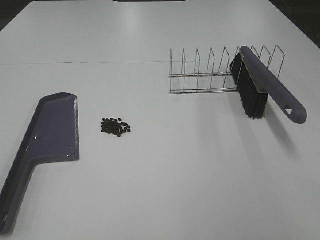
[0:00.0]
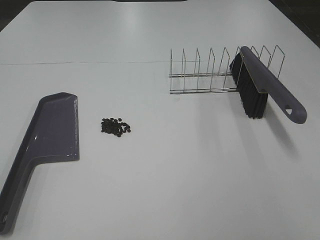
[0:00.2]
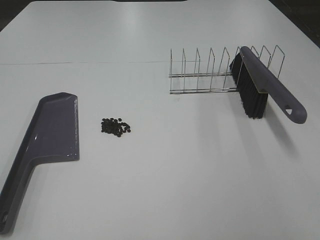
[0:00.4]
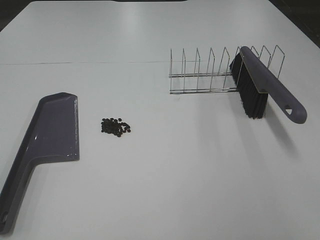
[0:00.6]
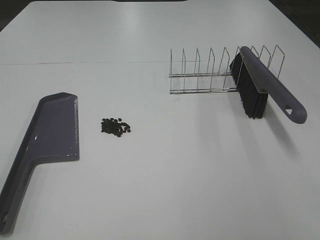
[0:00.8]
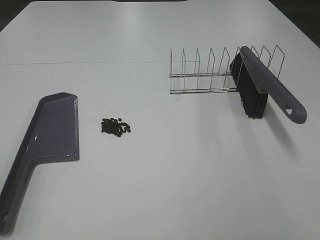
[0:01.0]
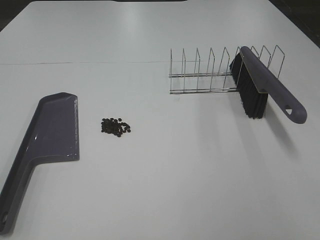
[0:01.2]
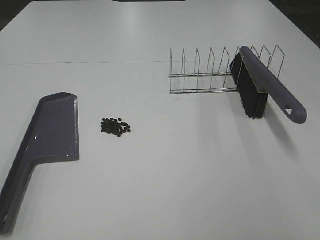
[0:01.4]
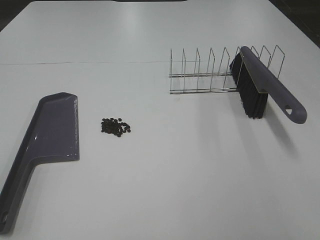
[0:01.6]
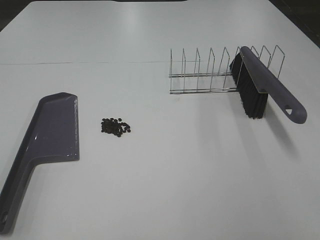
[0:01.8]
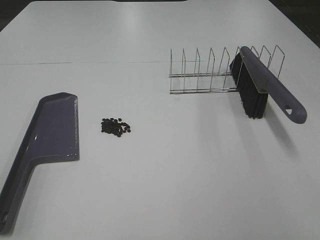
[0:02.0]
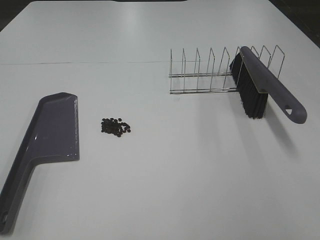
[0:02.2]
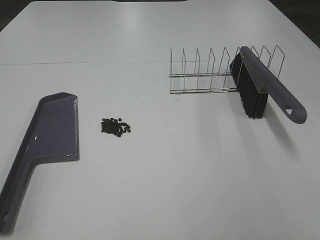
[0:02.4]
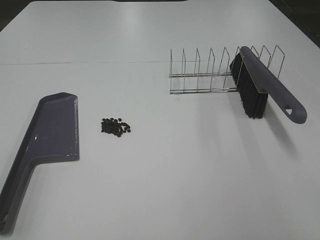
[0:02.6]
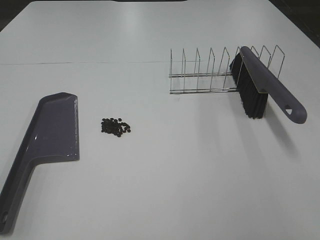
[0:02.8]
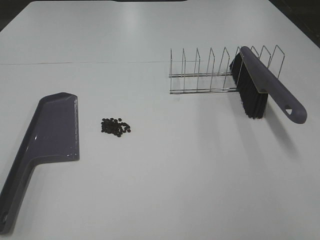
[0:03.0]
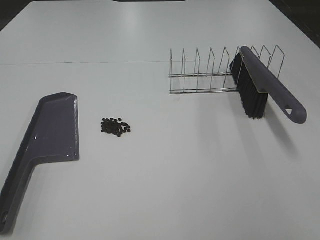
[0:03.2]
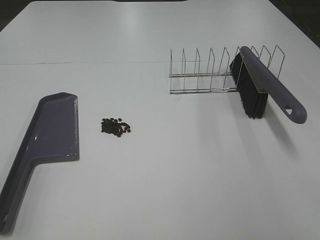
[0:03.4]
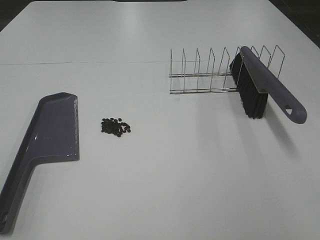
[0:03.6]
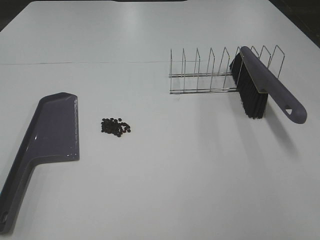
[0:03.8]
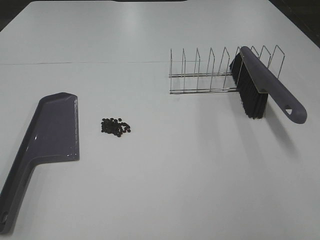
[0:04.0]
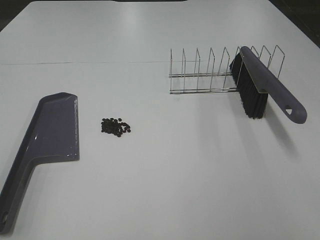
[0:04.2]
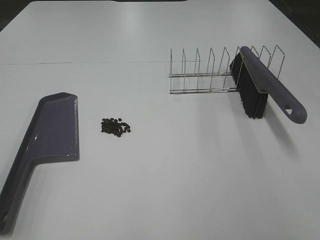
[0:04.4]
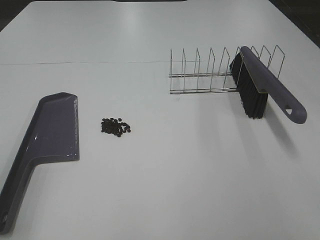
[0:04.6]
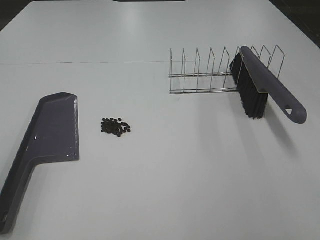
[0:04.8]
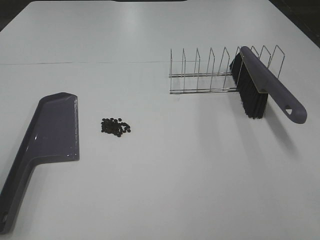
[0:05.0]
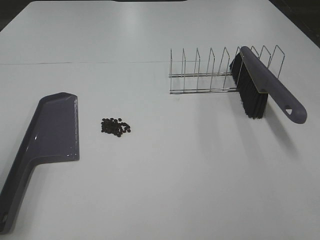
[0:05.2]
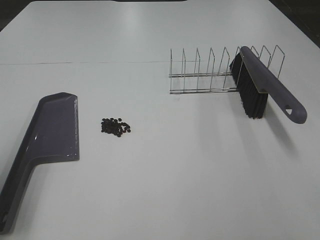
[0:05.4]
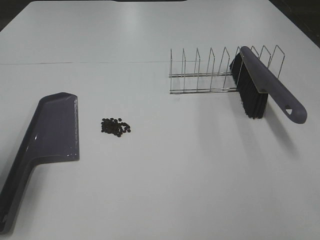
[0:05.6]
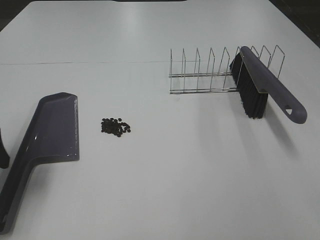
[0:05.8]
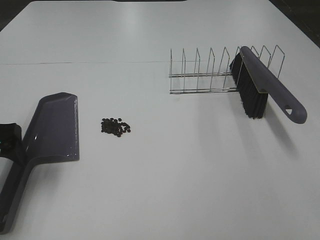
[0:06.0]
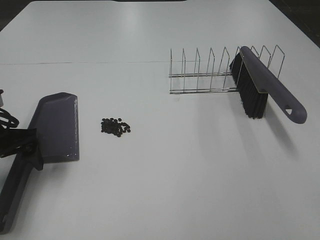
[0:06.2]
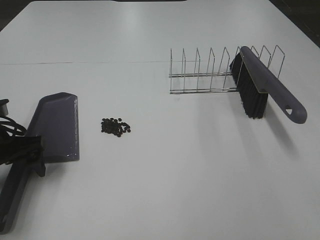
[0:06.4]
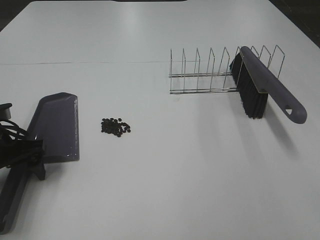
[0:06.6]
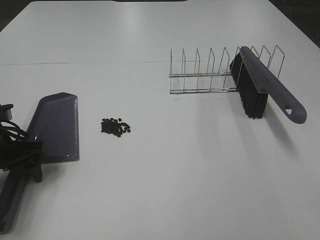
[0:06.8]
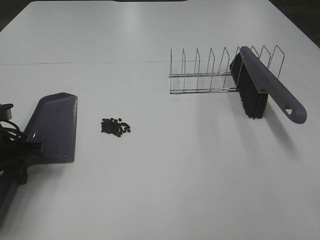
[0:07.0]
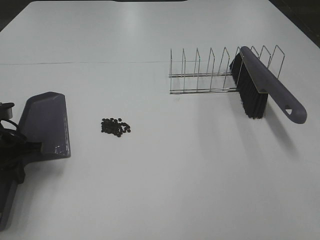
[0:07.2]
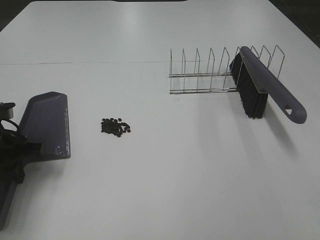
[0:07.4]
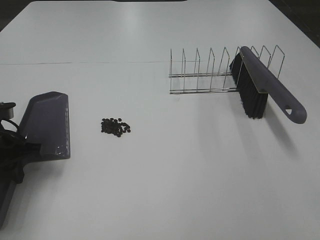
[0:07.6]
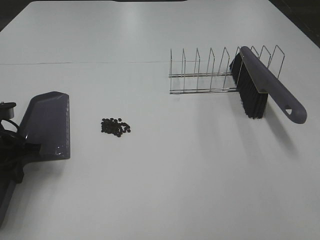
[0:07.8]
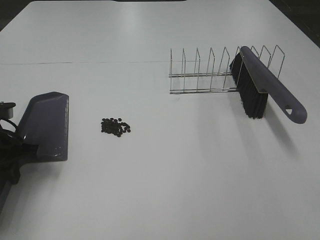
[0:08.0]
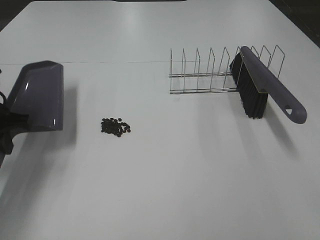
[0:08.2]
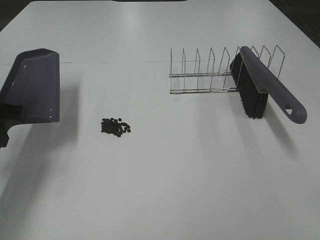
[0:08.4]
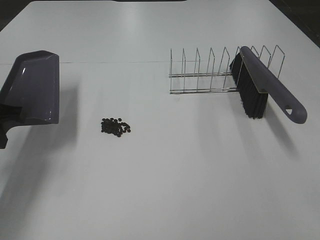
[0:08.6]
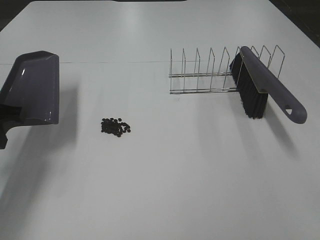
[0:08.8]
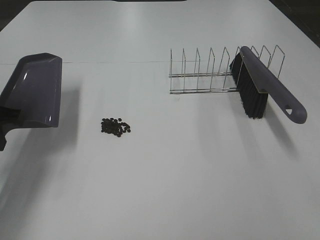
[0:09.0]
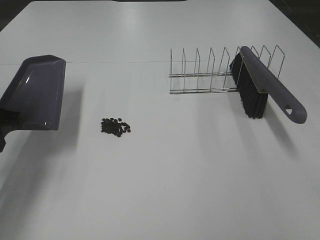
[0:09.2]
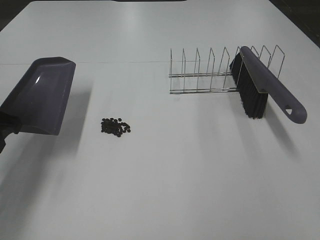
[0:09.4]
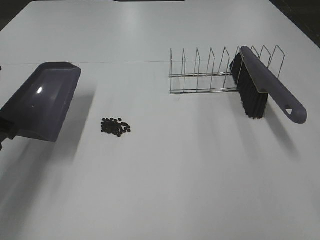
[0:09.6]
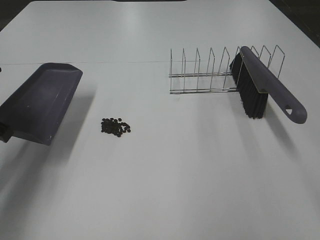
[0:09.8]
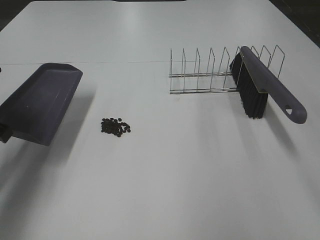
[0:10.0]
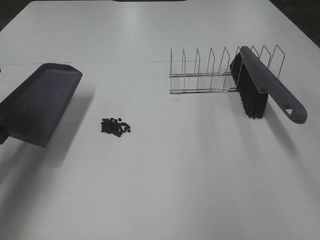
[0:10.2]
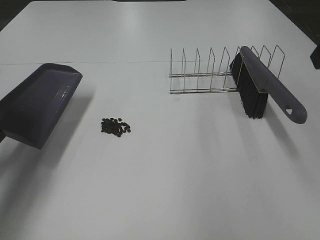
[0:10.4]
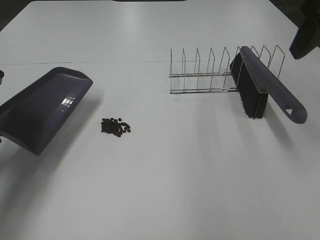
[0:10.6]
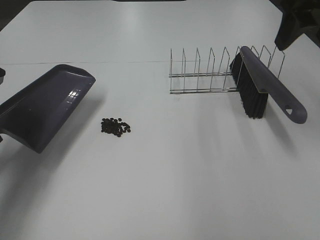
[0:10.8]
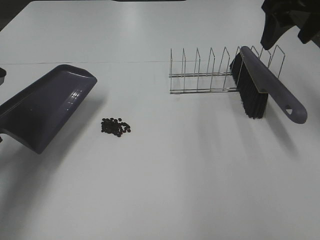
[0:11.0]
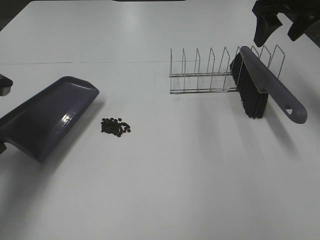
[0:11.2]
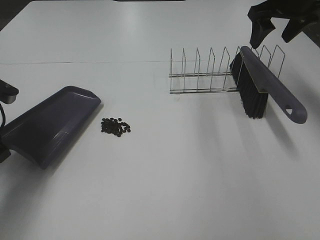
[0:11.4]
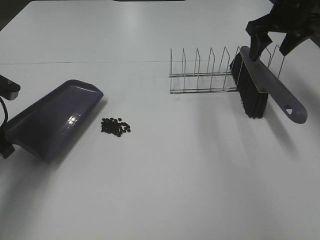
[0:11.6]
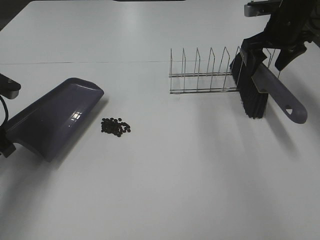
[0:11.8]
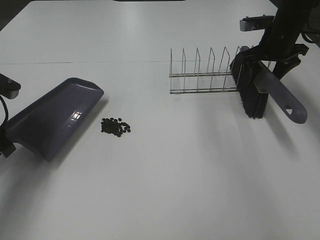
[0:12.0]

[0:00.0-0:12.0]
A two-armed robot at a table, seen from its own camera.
Task of the whole recording: Sweep Coffee Bean.
Step, 0:00.0 to 0:07.4: Left hand: grab the dustpan.
0:01.6 to 0:03.0: Both grippers stay about where they are.
0:04.4 to 0:06.0: The left gripper travels forward and downward by about 25 cm.
0:06.0 to 0:07.6: The left gripper moves downward, approximately 5 cm, and closes its fingers.
0:07.6 to 0:09.0: The left gripper heads upward, covering roughly 10 cm.
0:10.4 to 0:12.0: The right gripper is displaced forward and downward by roughly 30 cm.

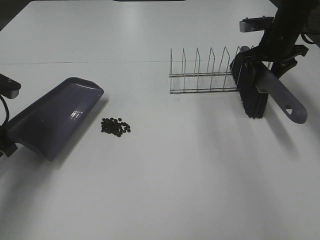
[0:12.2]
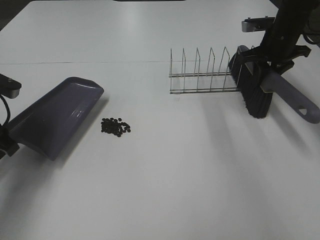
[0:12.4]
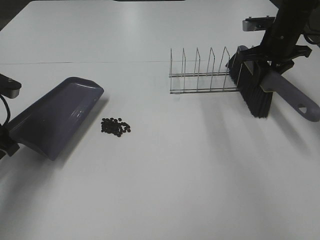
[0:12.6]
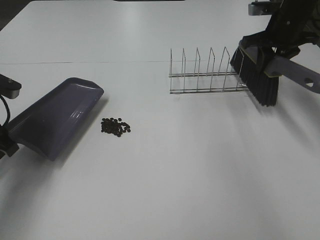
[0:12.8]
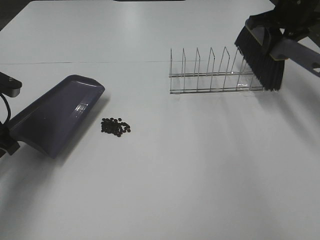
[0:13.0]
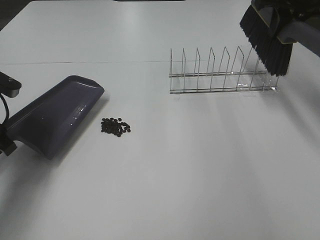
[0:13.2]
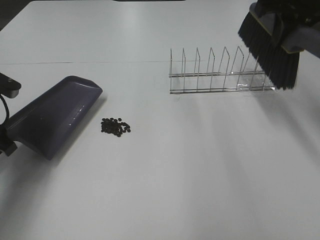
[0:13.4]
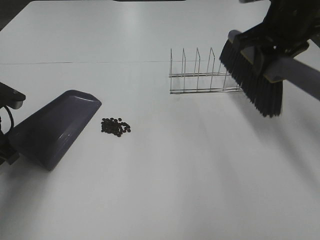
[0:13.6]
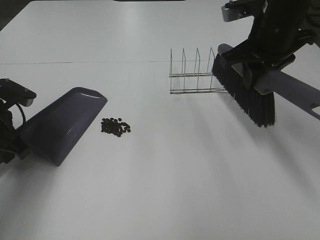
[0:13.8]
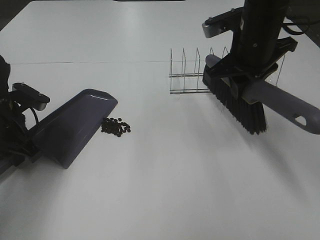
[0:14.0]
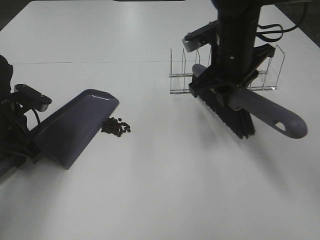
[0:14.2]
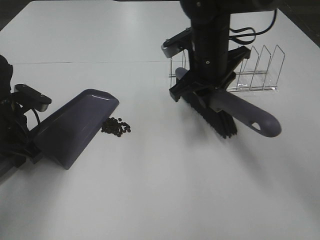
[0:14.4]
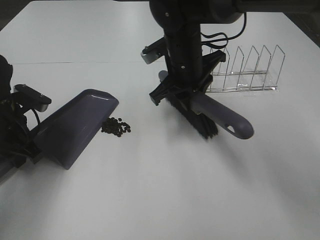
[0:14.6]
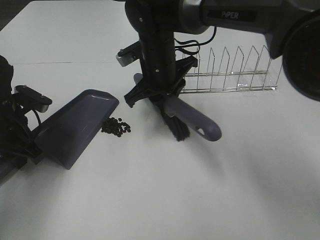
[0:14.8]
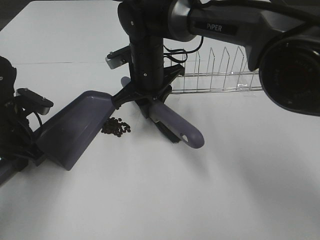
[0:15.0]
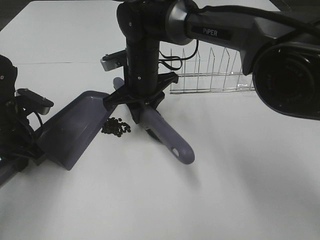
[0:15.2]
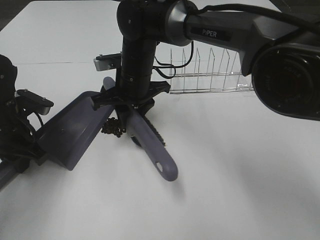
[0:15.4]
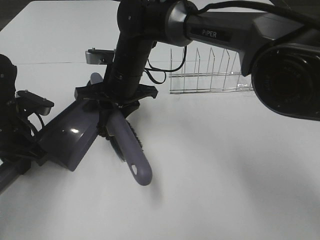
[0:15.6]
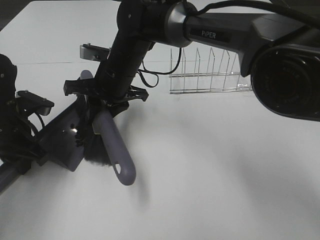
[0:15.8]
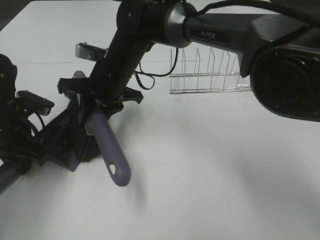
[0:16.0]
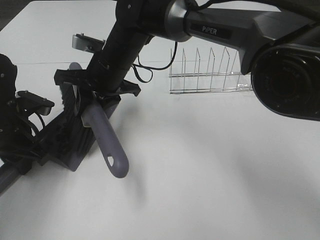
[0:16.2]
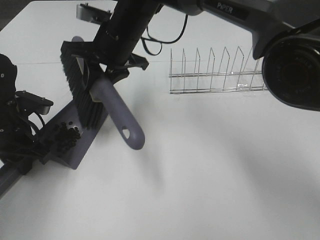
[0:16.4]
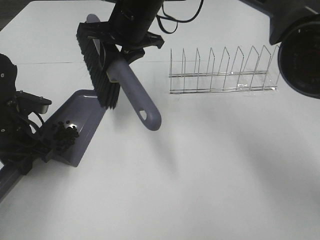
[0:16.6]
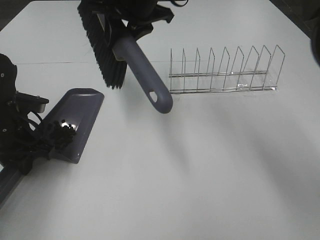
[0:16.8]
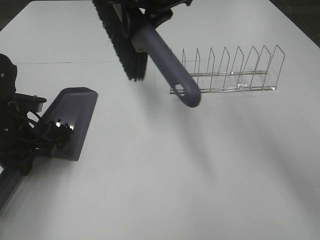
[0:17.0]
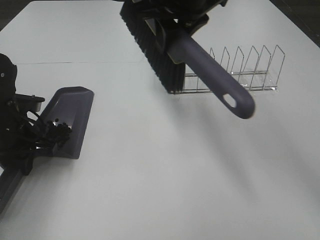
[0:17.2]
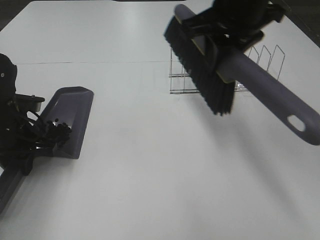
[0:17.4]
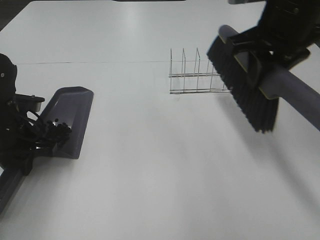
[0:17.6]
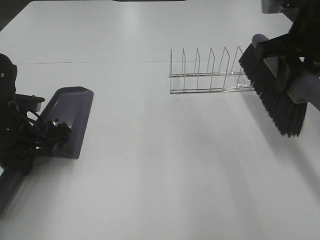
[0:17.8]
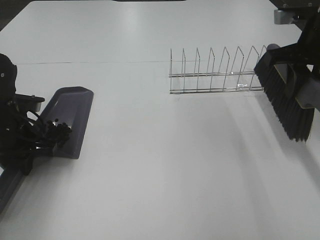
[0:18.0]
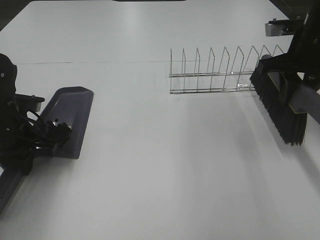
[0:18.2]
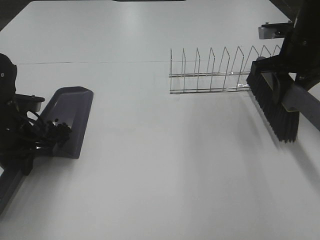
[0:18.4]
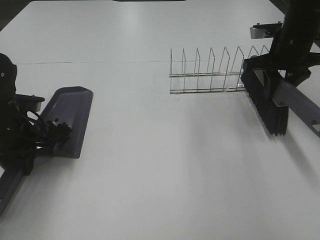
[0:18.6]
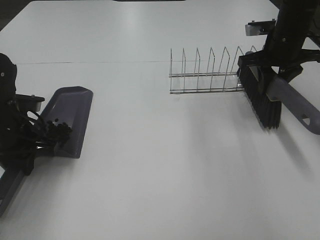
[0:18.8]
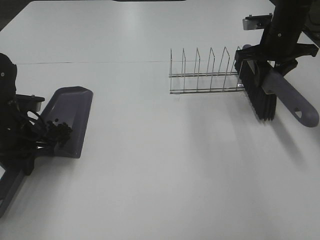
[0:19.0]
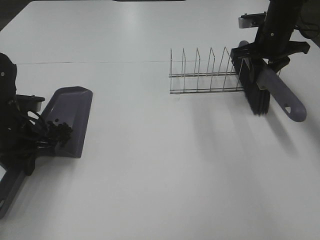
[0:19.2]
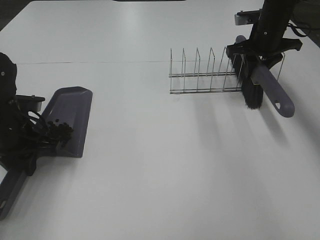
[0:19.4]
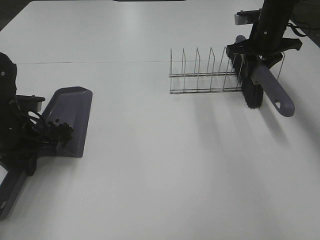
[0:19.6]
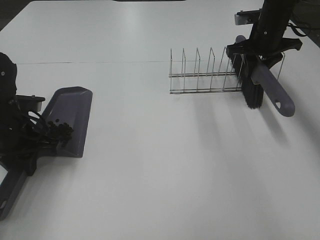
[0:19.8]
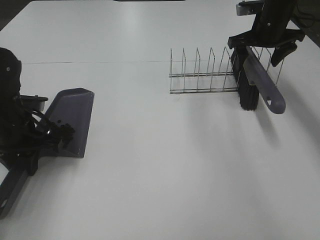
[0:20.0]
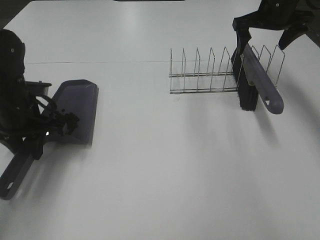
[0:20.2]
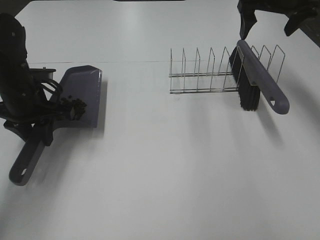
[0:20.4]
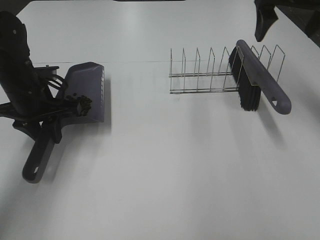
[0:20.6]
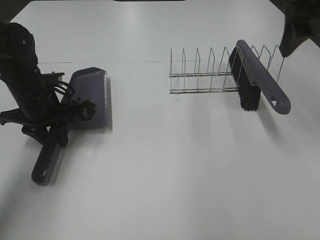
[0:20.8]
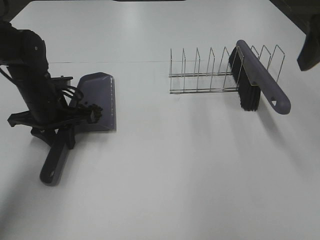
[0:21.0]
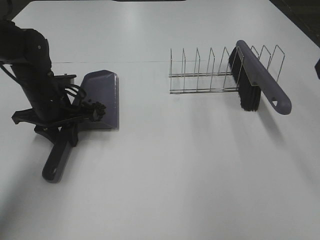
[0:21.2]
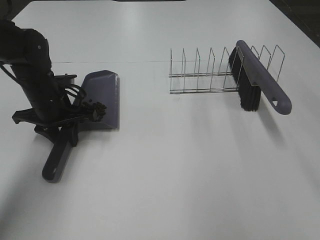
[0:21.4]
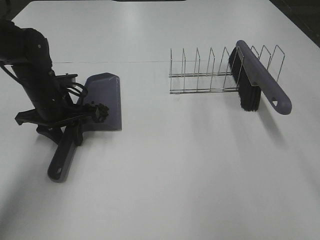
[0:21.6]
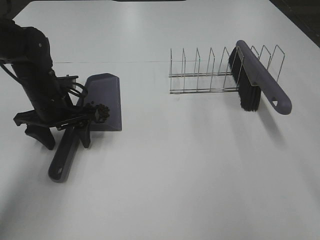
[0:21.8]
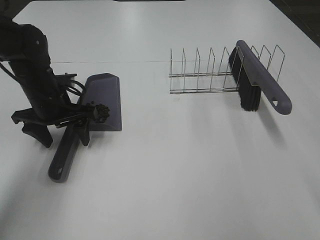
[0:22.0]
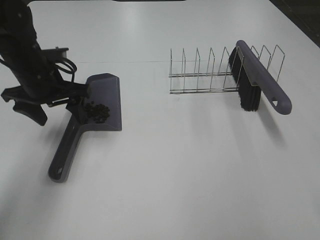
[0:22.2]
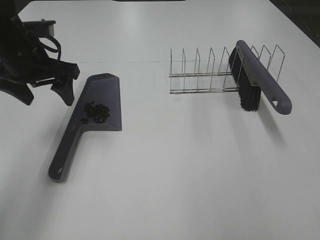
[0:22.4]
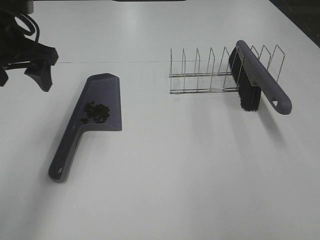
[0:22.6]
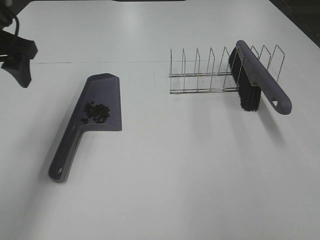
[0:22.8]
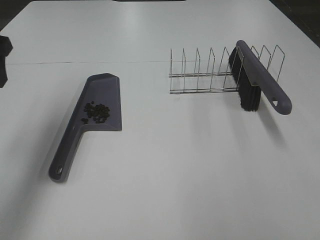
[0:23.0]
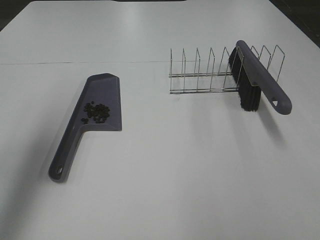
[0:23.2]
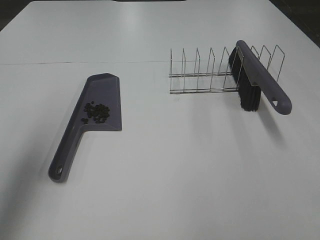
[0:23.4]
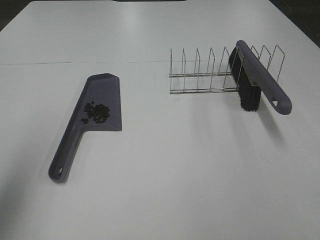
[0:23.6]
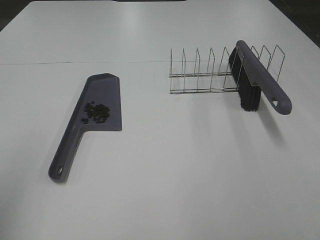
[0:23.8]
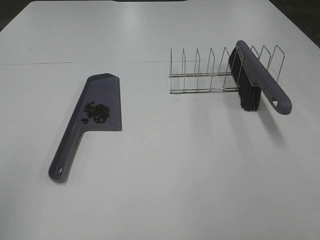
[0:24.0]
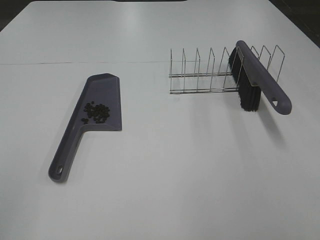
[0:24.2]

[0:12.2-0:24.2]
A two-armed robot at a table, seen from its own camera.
Task of the whole recording: Sweep Coffee Bean.
Step, 0:12.4 to 0:16.4: Right hand:sweep the coffee beans into the dustpan.
Step, 0:16.6 to 0:20.0: Right hand:place the broom on the rack.
Step, 0:20.2 to 0:22.0: Left hand:place the dustpan on the table.
0:12.2 to 0:13.8: The right gripper goes roughly 15 cm backward, to the left and upward, and closes.
0:13.8 to 0:15.2: The right gripper heads to the left and downward, covering approximately 25 cm.
0:15.2 to 0:16.6: The right gripper travels upward by roughly 10 cm.
0:16.6 to 0:18.2: The right gripper goes roughly 30 cm to the right.
0:18.2 to 0:19.8: The right gripper is displaced forward by roughly 15 cm.
0:19.8 to 0:21.2: The right gripper moves backward and upward, roughly 35 cm, and opens. The left gripper travels forward by some 5 cm.
0:21.2 to 0:22.6: The left gripper travels upward by about 15 cm, and opens up.
0:22.6 to 0:24.2: The left gripper moves backward, some 30 cm.
